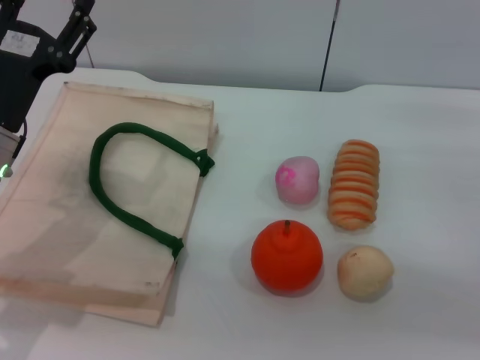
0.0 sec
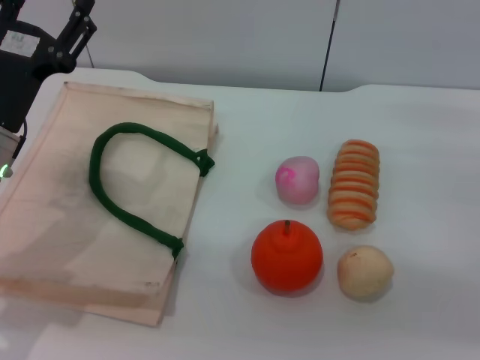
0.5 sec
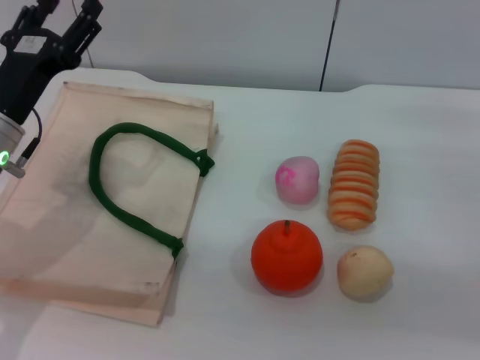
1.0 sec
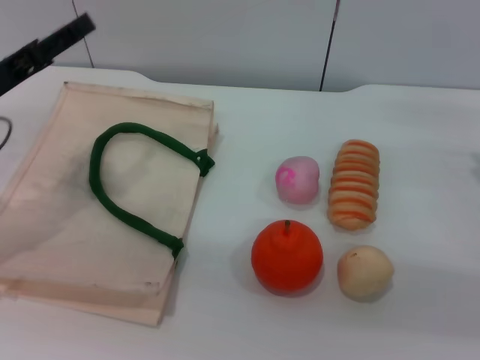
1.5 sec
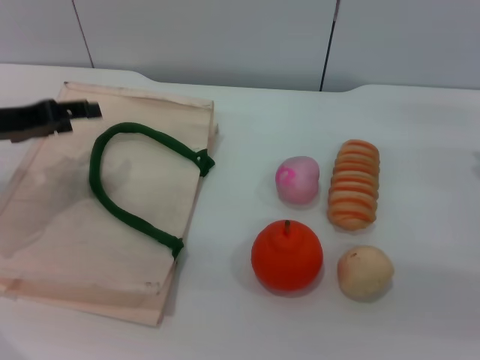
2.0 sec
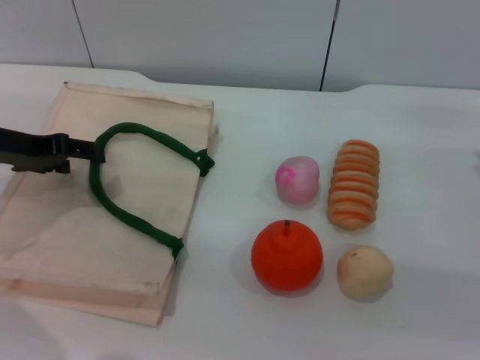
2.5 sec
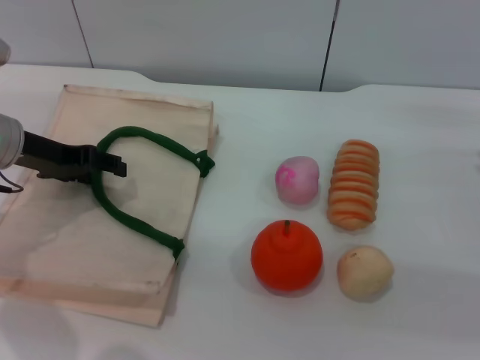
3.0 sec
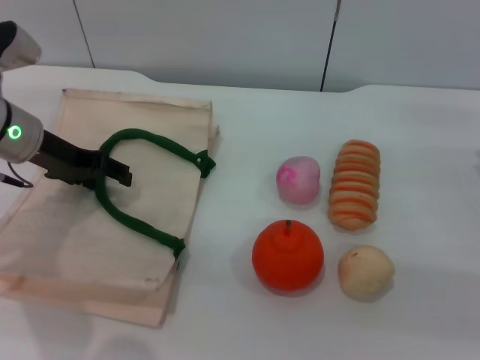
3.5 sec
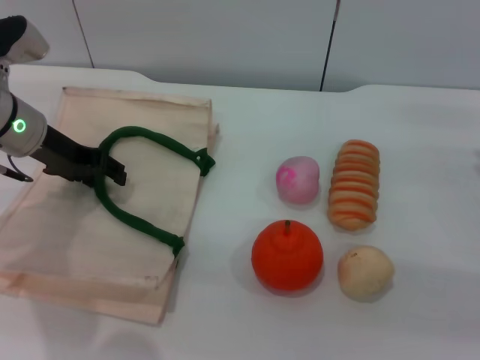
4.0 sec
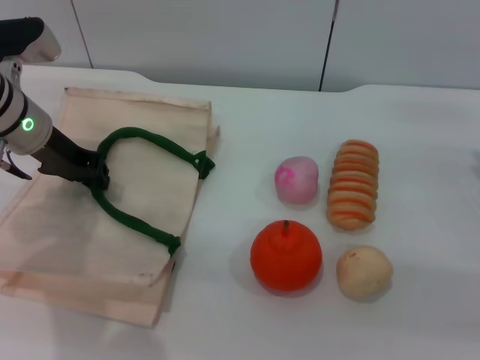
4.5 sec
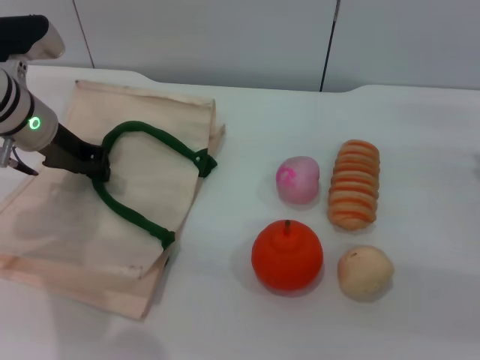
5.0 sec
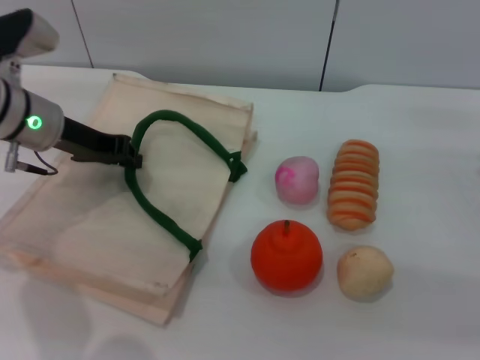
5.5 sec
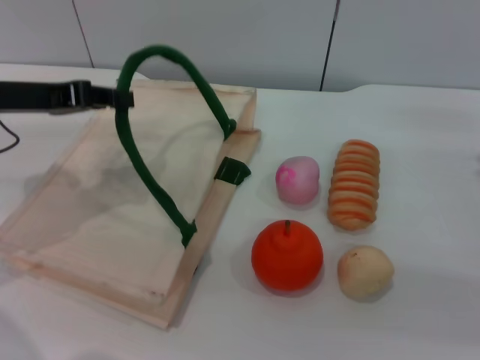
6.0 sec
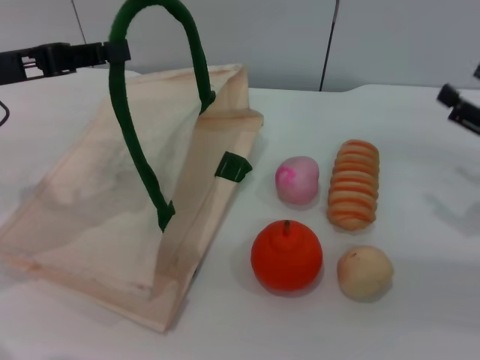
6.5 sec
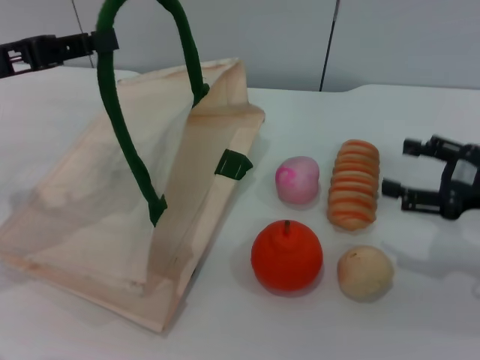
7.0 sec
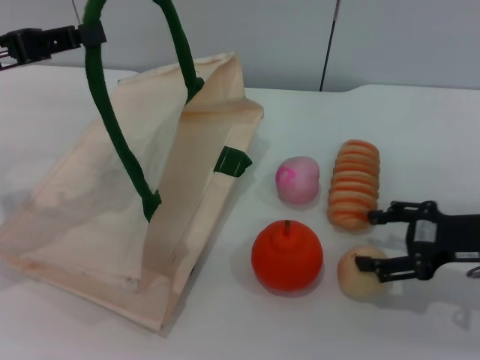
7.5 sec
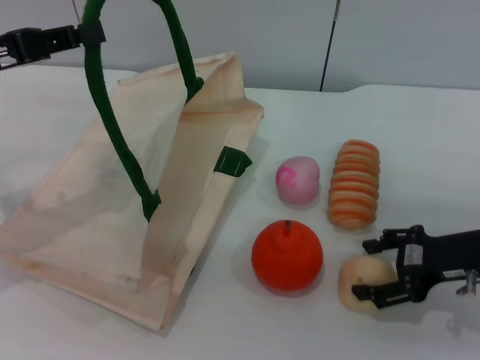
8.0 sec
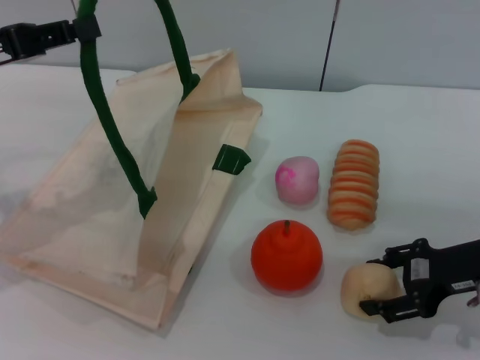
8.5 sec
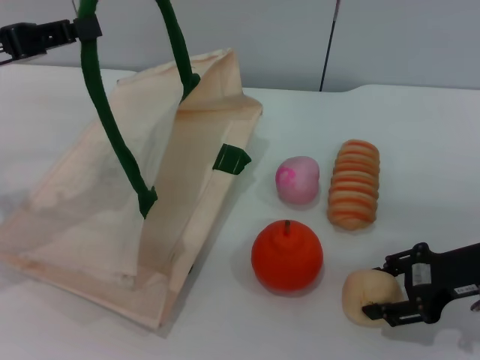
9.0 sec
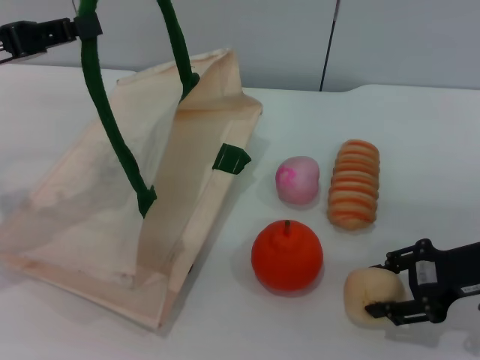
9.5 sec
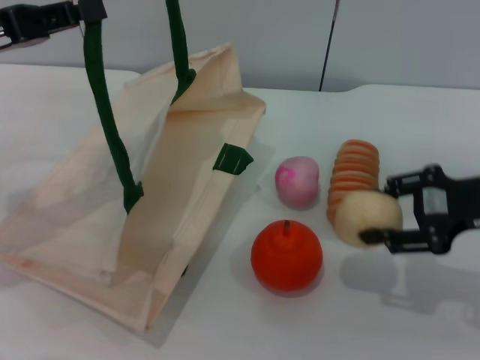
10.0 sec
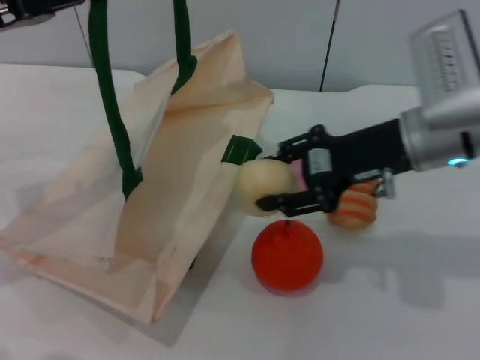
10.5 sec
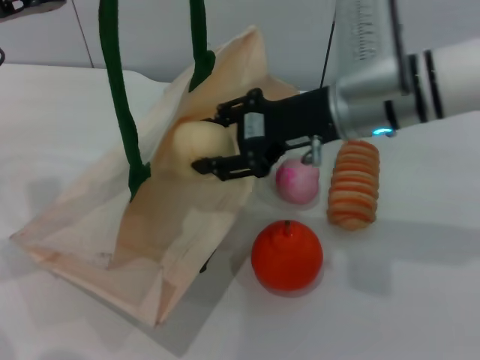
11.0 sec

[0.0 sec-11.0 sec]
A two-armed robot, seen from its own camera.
Task of the whole recording: pick up the egg yolk pastry from the table and place it in the white handbag.
Step, 0.0 sec to 6.5 sec: Lift the woven bag with the left gripper to open it.
Step, 7.0 sec to 9.5 sec: Pick up the egg yolk pastry with the right gripper.
0.0 sec to 2.0 sec: The left gripper moves to the left, about 5 cm.
2.0 sec to 3.5 sec: The left gripper is displaced forward and to the right by about 10 cm.
3.5 sec to 5.5 sec: The left gripper closes up.
5.5 sec to 7.5 sec: The left gripper is displaced backward, upward and to the left by about 15 cm.
7.5 sec to 9.0 sec: The right gripper closes.
9.0 sec to 11.0 sec: The right gripper heads to the left, upward and forward, covering about 20 cm.

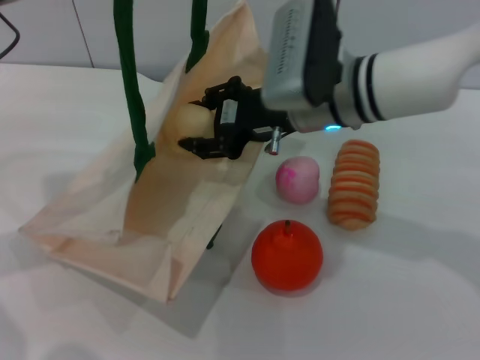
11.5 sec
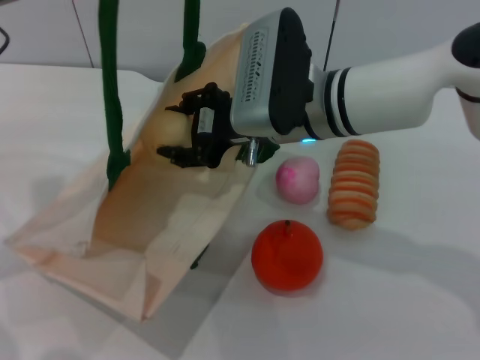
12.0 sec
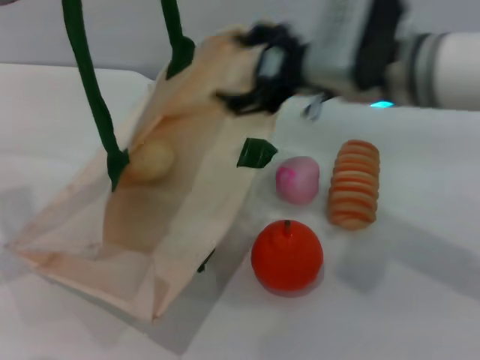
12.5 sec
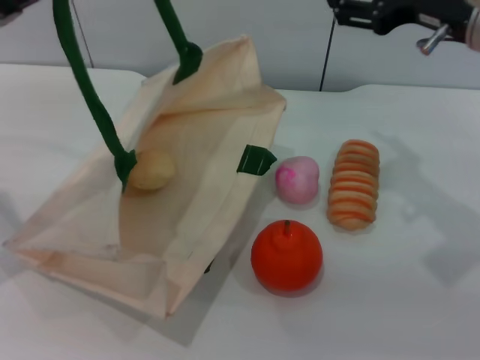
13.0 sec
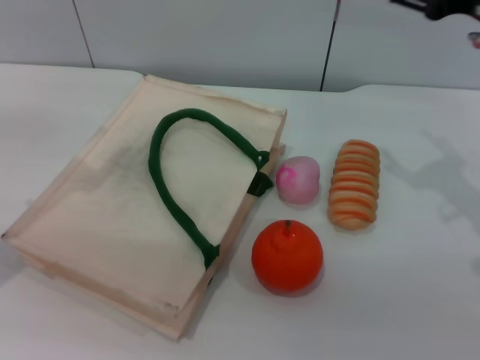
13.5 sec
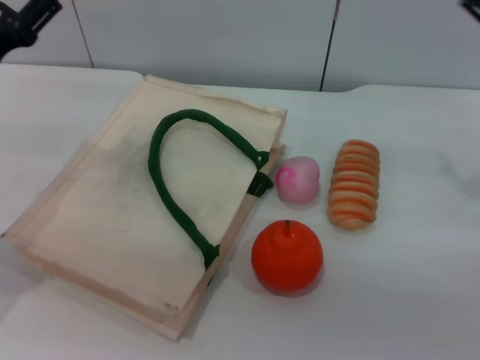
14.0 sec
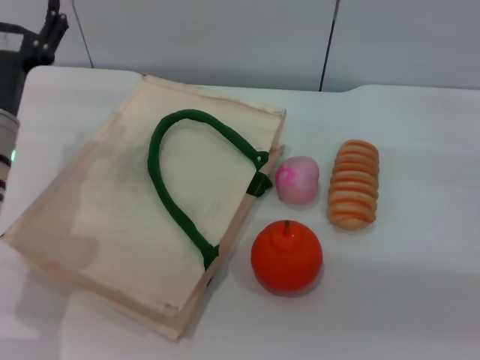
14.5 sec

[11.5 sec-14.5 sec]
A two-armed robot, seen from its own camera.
Task of the whole recording: pick up the egg yolk pastry from the table and place it in the white handbag.
Step, 12.5 sec to 13.0 sec: Lower the woven bag with the left gripper to close it.
11.5 sec to 13.0 sec: The left gripper changes place by roughly 5 cm. The right gripper travels to the right and upward by approximately 15 cm, and opens.
13.0 sec to 14.5 sec: The right gripper shifts some 20 cm to the right and downward; the left gripper travels downward and to the right by approximately 15 cm, and opens up.

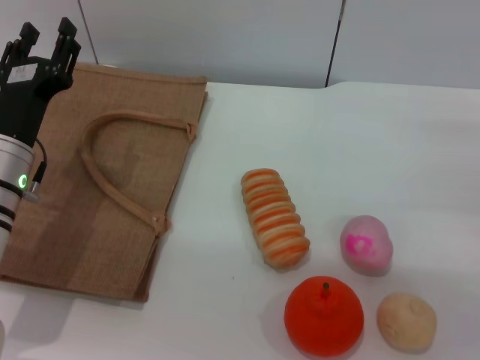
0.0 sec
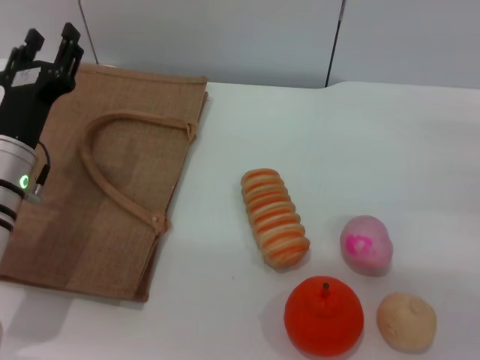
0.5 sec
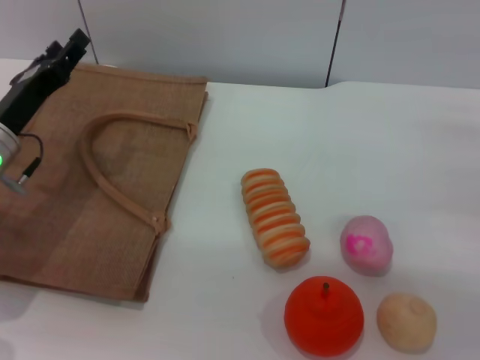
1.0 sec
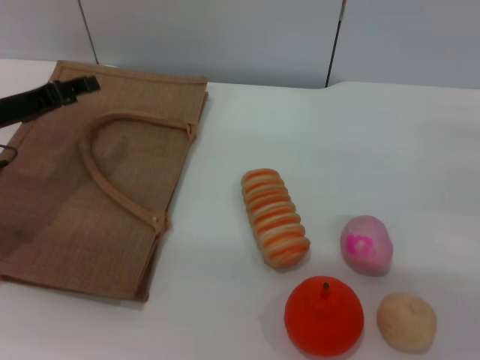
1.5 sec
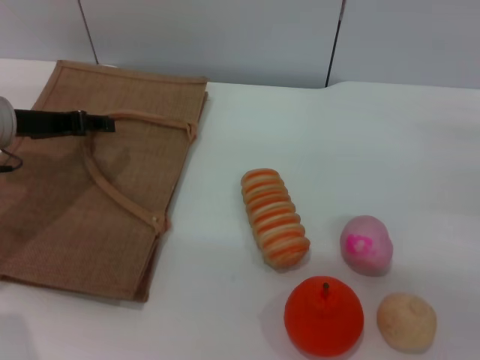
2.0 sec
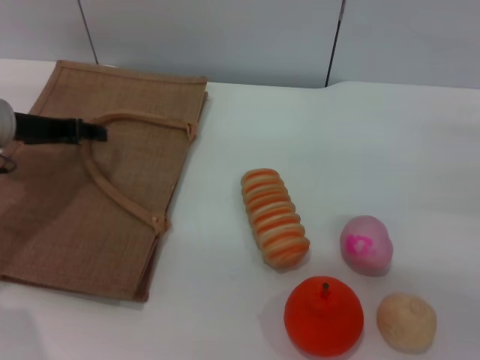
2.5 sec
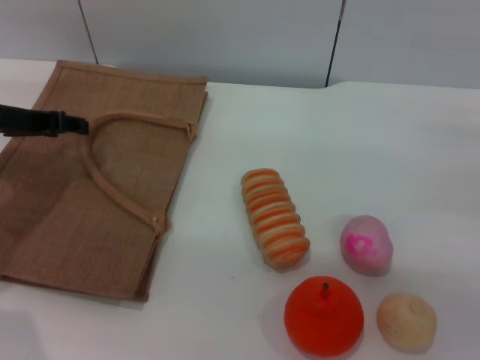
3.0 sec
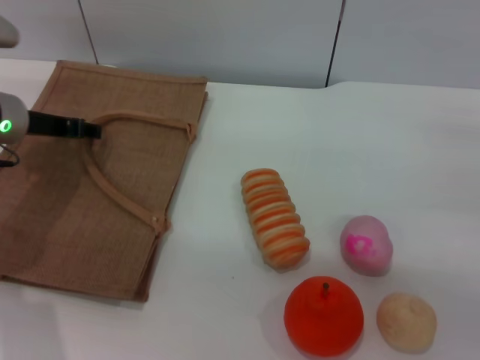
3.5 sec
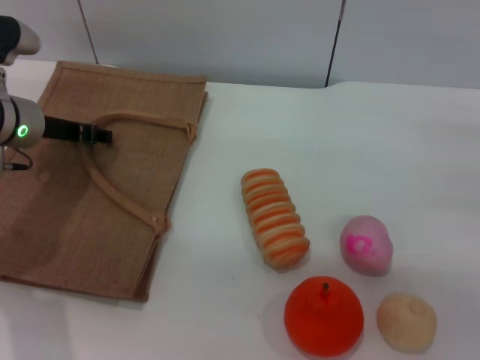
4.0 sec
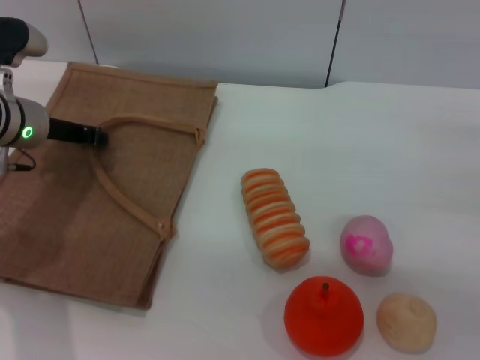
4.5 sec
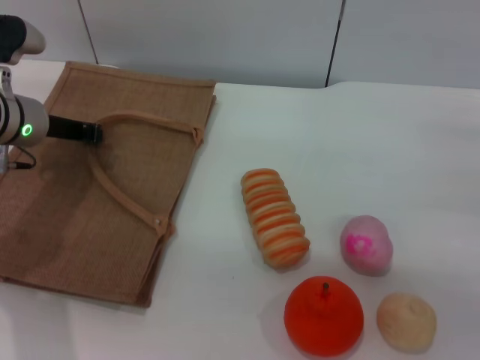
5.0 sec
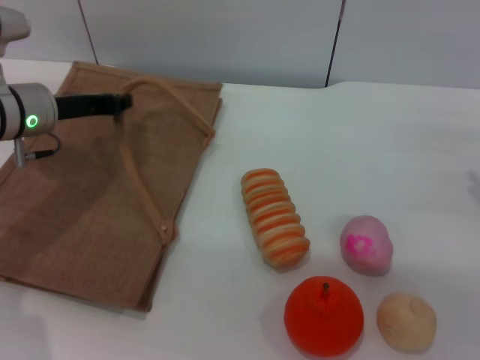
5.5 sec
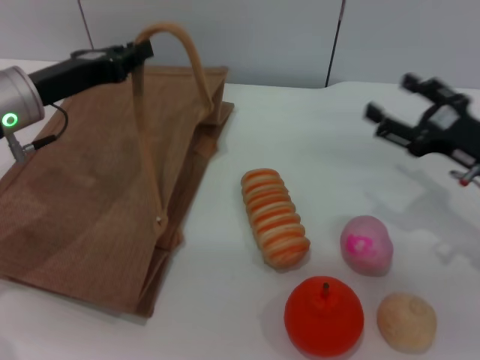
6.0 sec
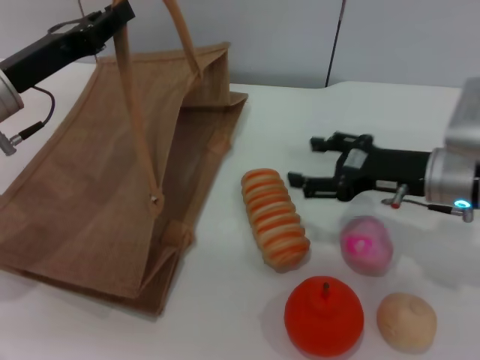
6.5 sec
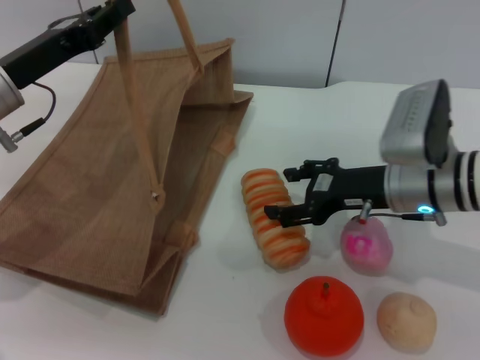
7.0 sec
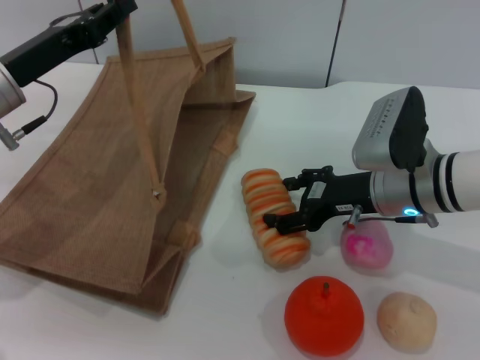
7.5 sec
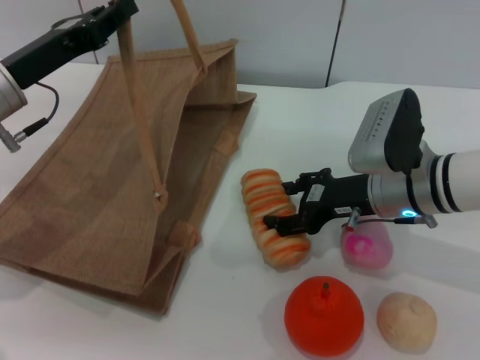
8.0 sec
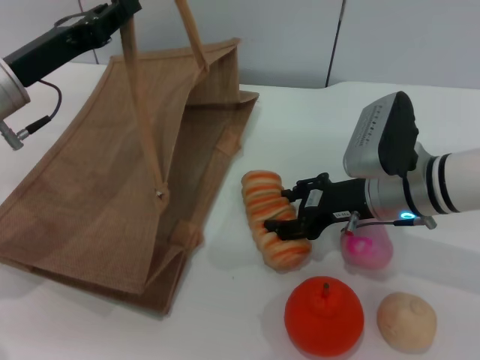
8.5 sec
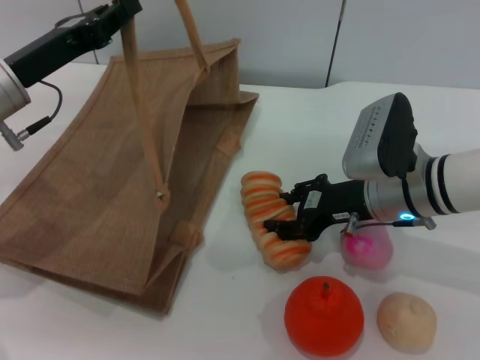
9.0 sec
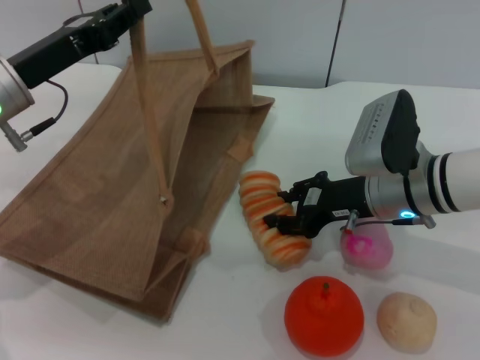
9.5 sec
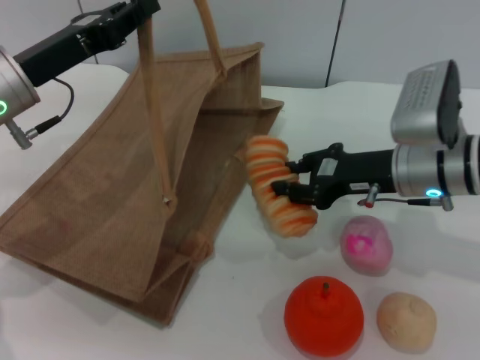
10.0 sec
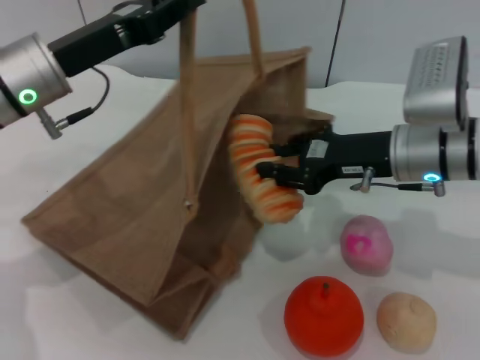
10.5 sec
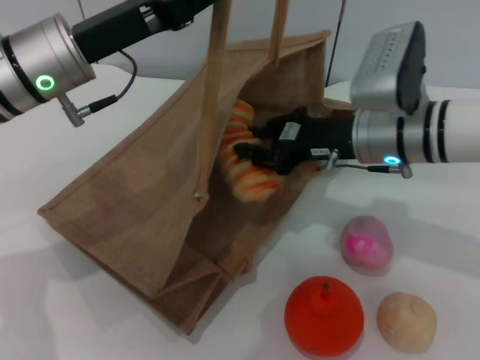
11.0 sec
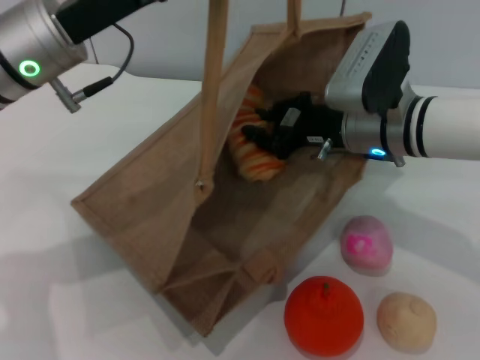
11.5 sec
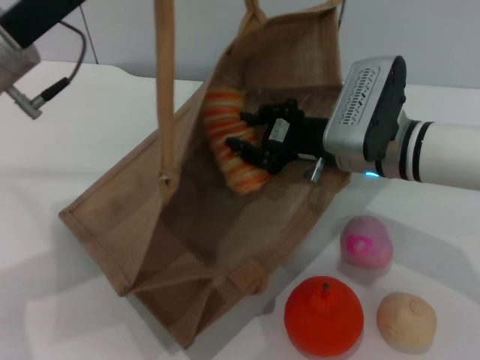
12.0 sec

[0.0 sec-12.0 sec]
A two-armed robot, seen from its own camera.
Task of the whole recording: pick up the bread and egg yolk pastry from the table and place it in the brown handbag.
Step, 0.0 sec to 5.5 sec: Lift the woven bag with the left gripper to open it.
Step, 6.0 sec to 10.0 sec: Pick up the bread with the right gripper.
0.0 sec to 2.0 sec: The left gripper travels forward, to the left and upward by about 10 cm.
2.0 sec to 4.0 sec: The grippers stay close to where they were, moving slightly.
4.0 sec to 6.0 sec: The left gripper moves roughly 5 cm, and closes its fingers; the right gripper heads to the left, covering approximately 5 cm.
6.0 sec to 8.0 sec: The right gripper is displaced to the left by roughly 10 cm.
8.0 sec to 10.0 sec: The right gripper closes its fingers.
10.0 sec to 12.0 sec: The right gripper shifts about 5 cm to the left.
